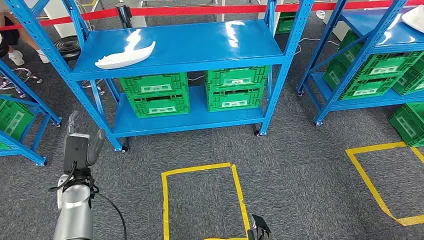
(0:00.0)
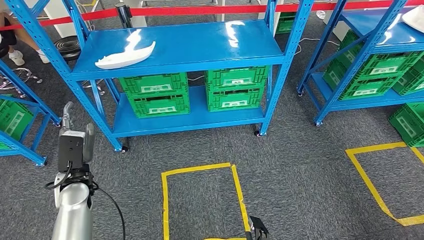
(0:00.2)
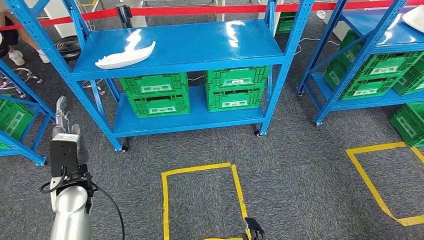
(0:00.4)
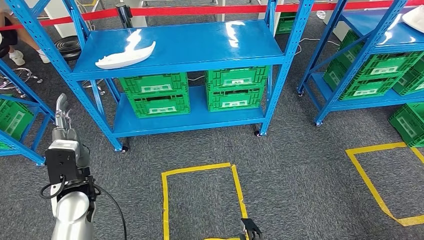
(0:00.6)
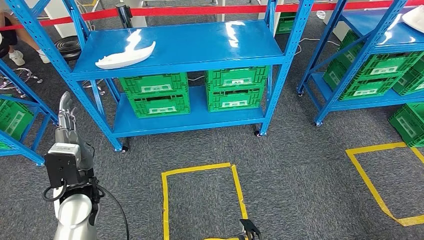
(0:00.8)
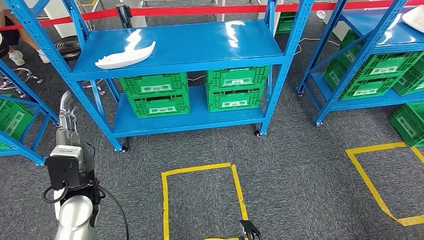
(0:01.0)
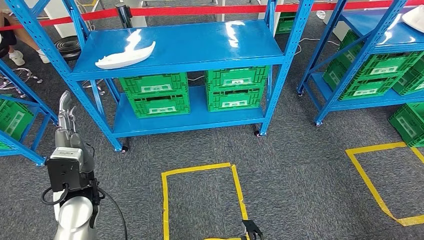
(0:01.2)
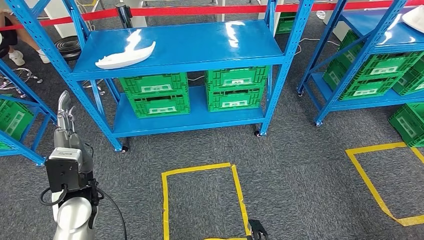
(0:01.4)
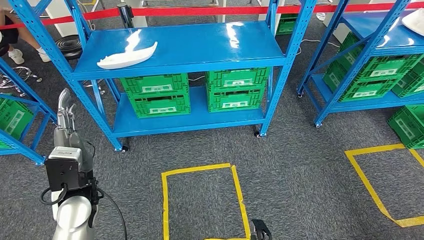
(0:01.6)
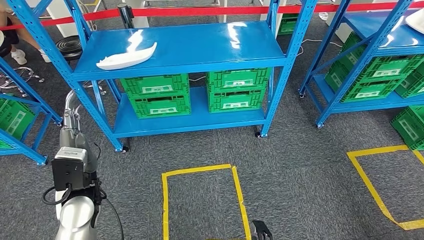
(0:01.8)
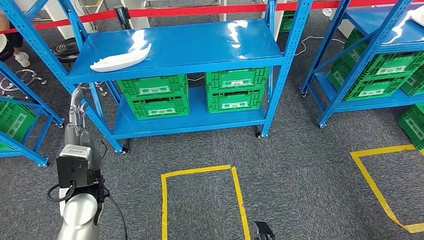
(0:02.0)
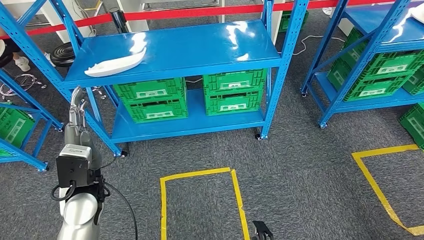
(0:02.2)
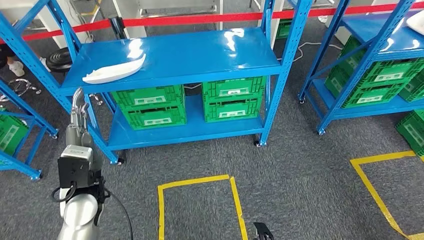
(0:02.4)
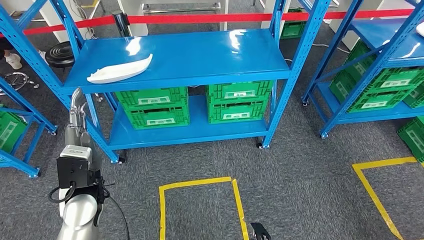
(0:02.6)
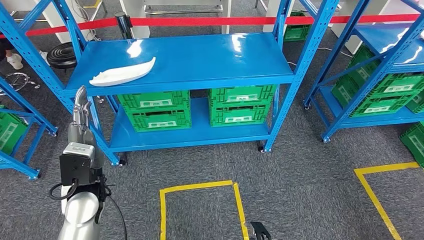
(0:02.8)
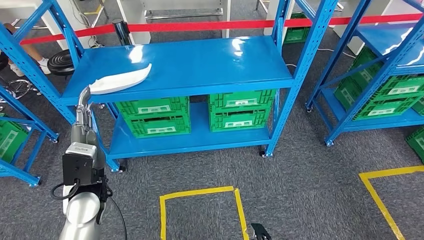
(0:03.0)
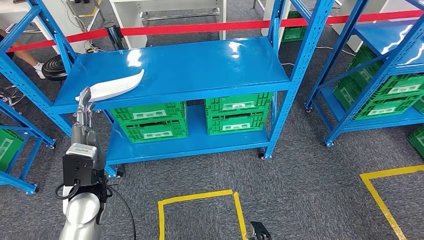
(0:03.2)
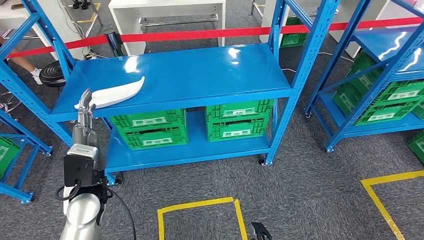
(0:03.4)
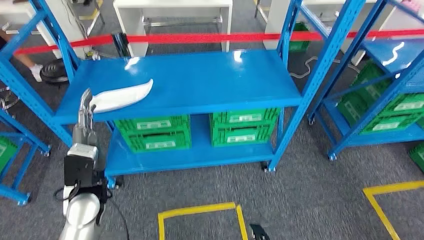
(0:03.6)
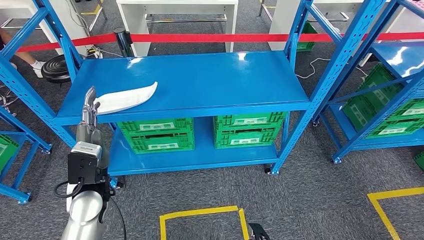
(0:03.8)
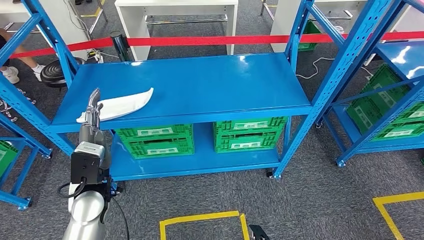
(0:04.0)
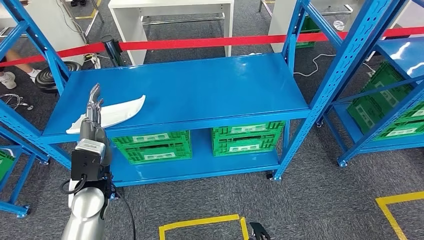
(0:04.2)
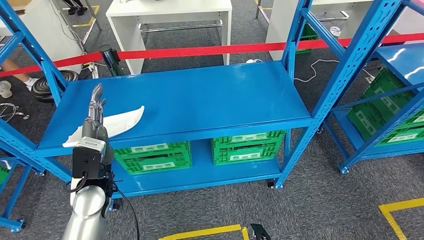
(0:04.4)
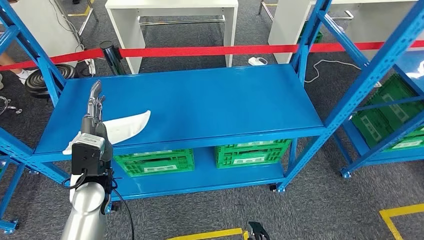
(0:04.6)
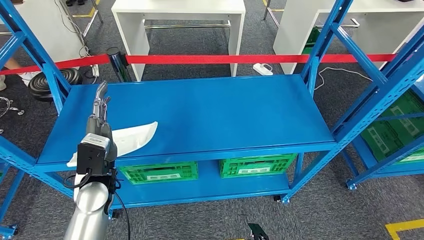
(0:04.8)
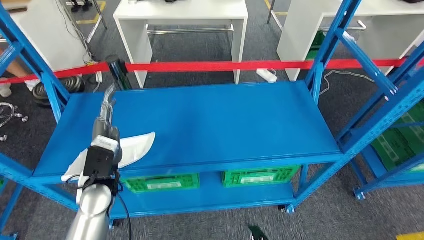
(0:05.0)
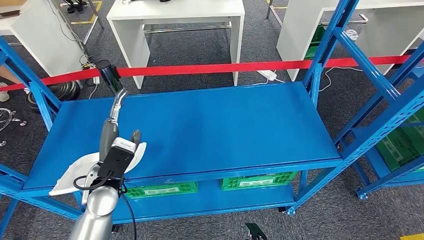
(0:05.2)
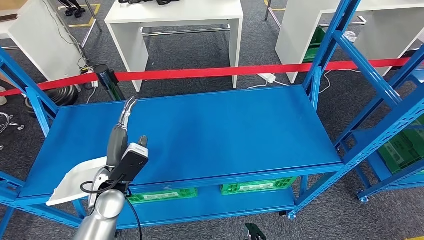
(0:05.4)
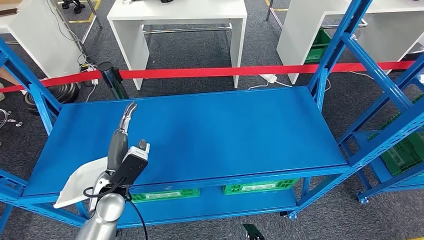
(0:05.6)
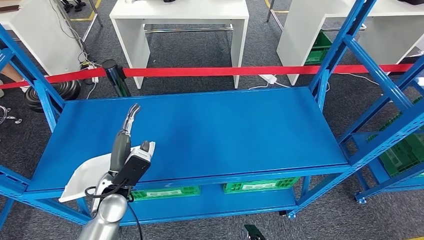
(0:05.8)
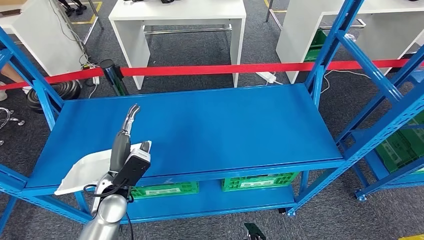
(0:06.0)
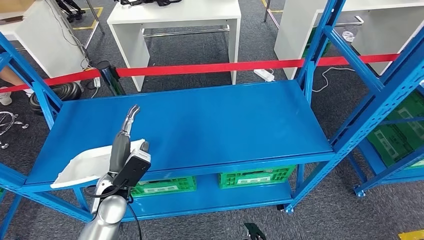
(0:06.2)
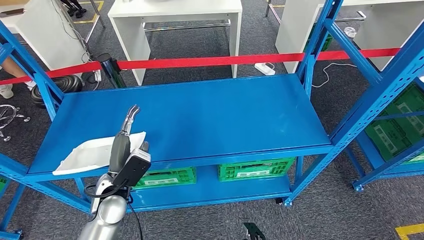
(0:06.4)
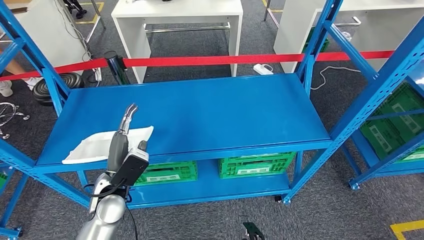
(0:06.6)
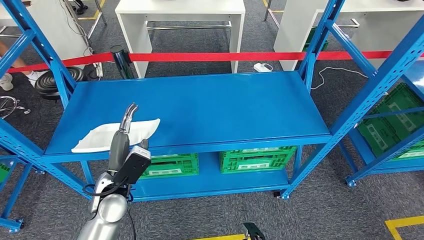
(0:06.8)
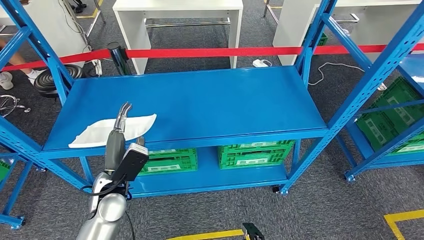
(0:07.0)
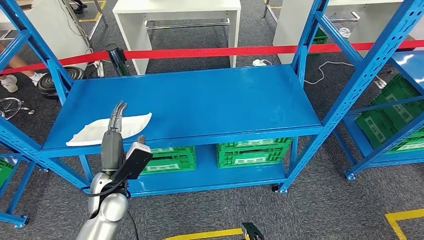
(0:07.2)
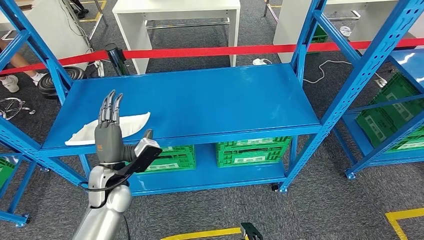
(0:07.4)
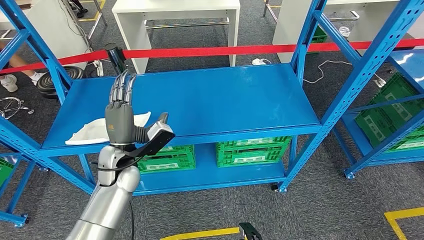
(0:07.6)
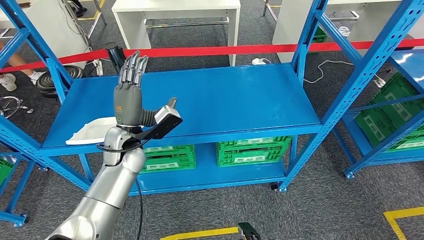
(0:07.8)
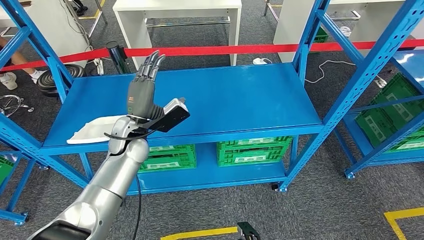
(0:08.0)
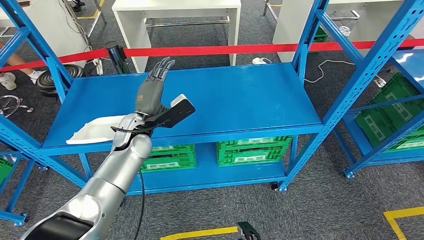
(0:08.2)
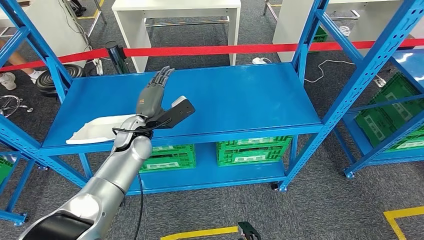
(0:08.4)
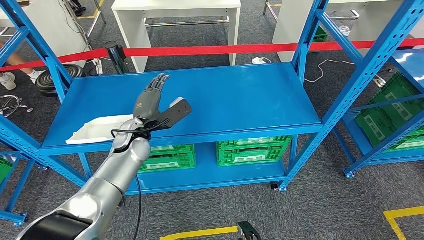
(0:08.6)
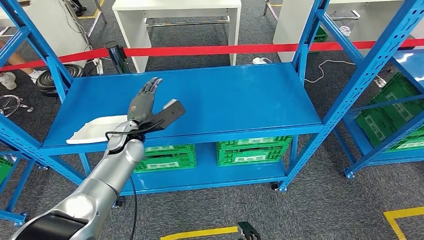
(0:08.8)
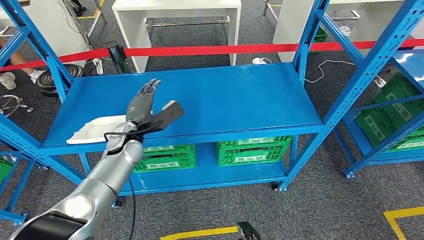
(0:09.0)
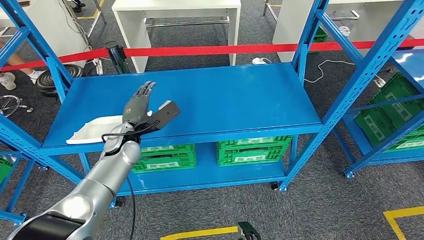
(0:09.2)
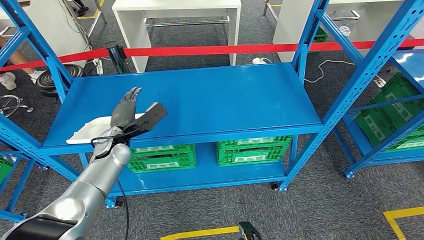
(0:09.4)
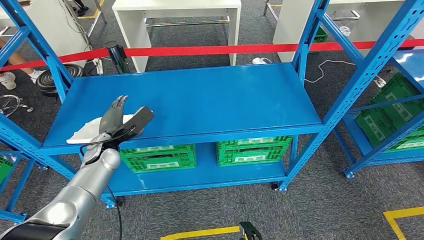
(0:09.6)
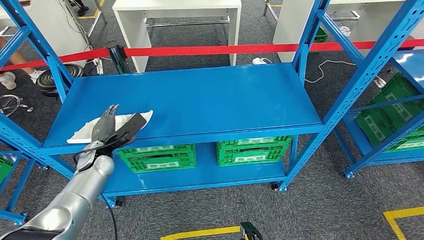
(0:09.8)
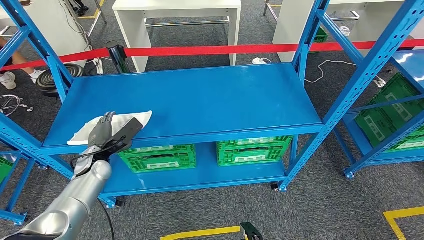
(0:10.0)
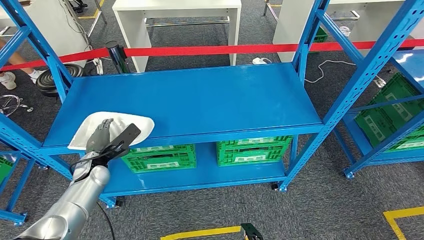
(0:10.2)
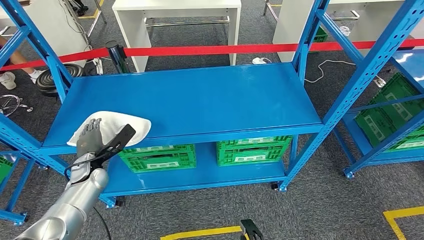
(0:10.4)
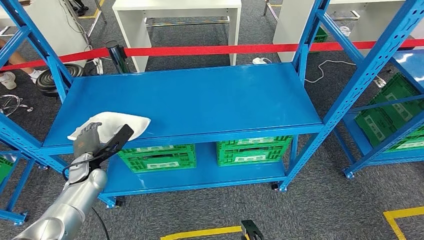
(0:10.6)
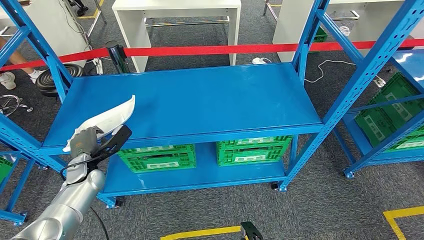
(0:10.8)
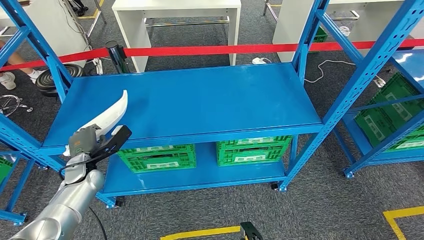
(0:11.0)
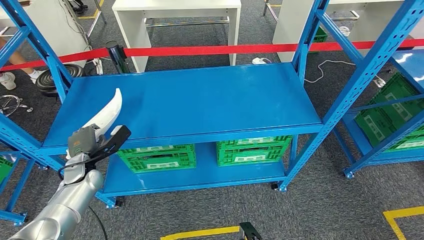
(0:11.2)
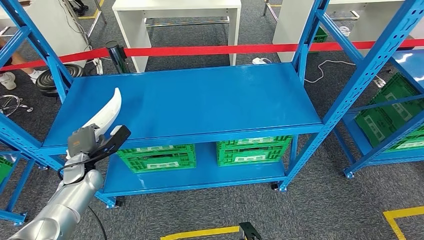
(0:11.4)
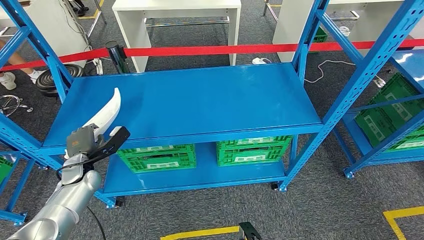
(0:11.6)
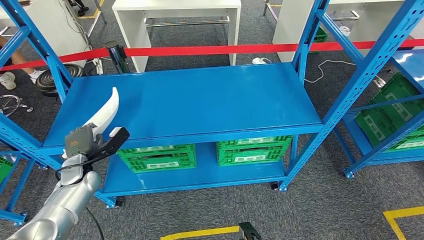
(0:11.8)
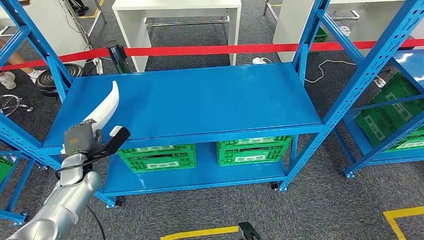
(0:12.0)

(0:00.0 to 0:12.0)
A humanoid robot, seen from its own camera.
0:07.6 - 0:09.0: The left hand shifts some 5 cm forward.
0:09.0 - 0:10.4: The left hand moves to the left and downward, about 15 cm.
0:10.4 - 0:12.0: The hands stay close to where they were, moving slightly.

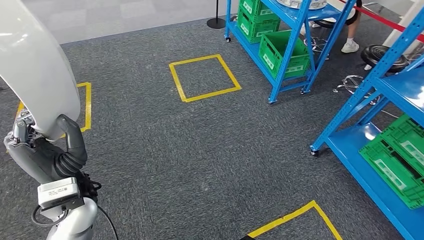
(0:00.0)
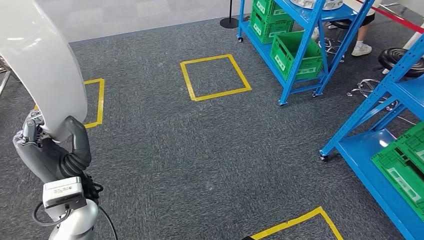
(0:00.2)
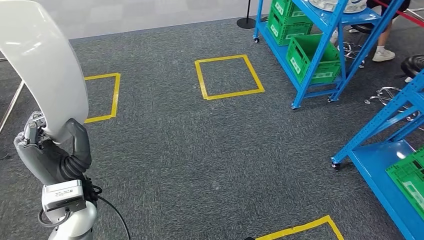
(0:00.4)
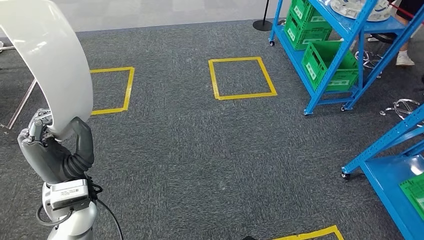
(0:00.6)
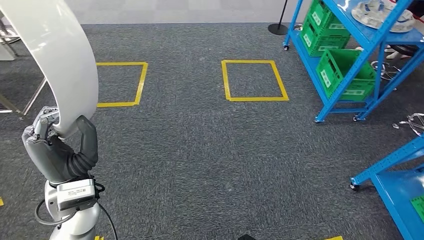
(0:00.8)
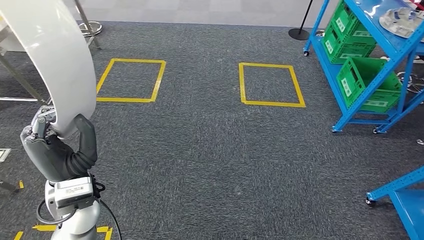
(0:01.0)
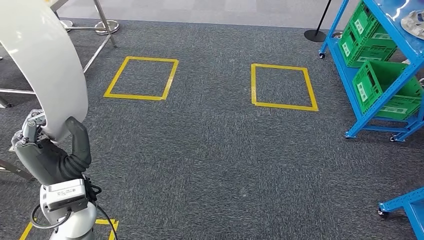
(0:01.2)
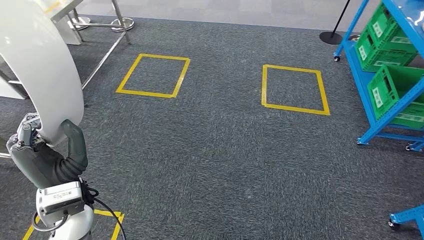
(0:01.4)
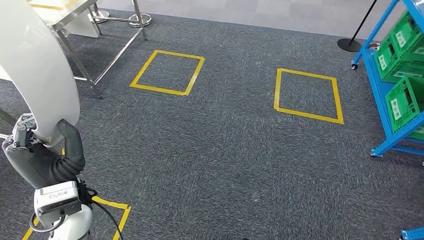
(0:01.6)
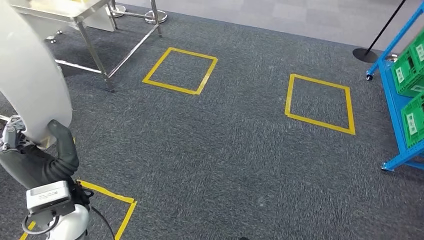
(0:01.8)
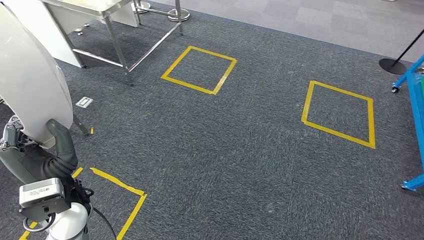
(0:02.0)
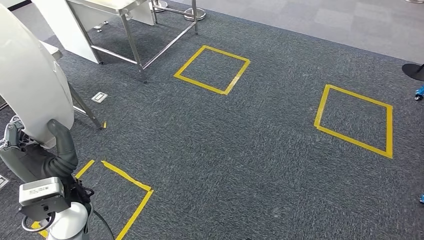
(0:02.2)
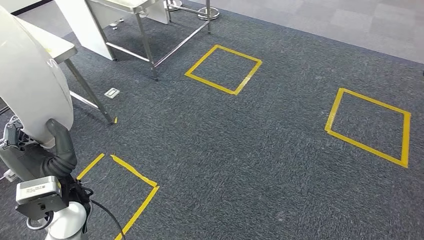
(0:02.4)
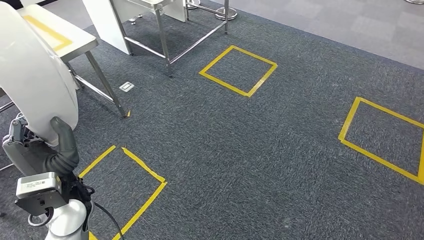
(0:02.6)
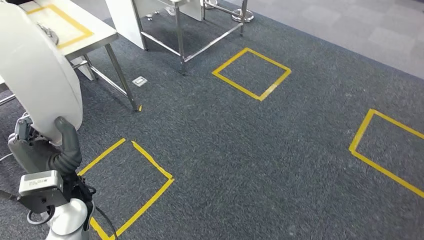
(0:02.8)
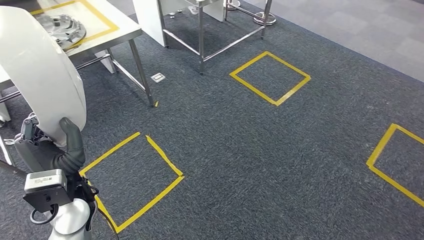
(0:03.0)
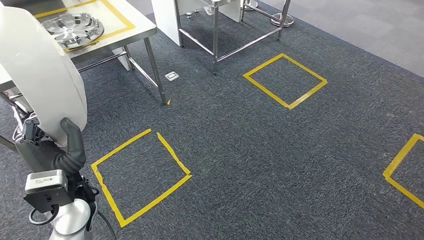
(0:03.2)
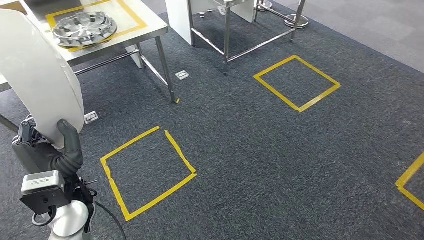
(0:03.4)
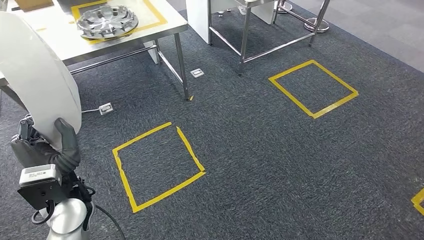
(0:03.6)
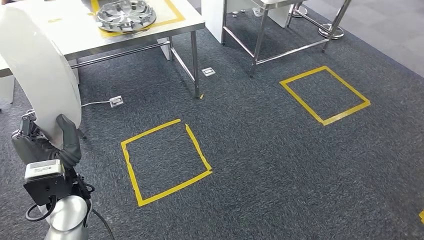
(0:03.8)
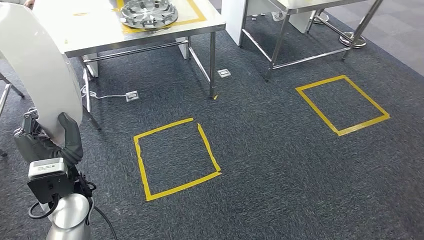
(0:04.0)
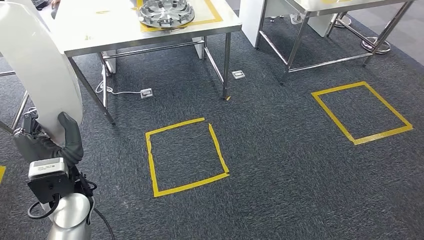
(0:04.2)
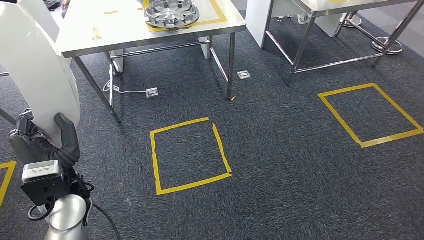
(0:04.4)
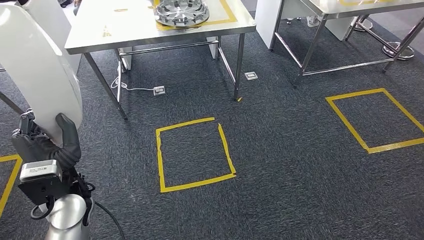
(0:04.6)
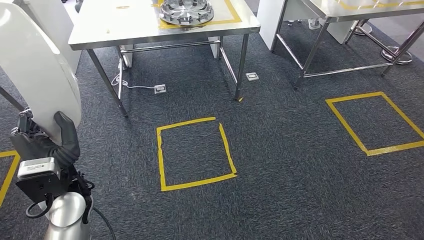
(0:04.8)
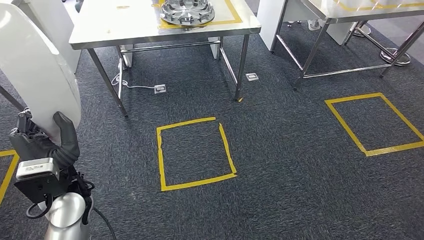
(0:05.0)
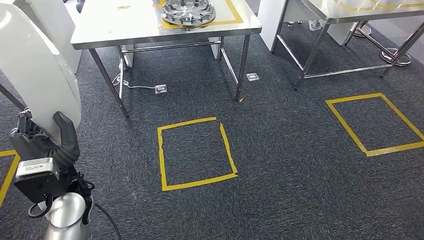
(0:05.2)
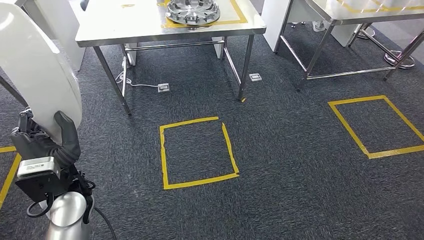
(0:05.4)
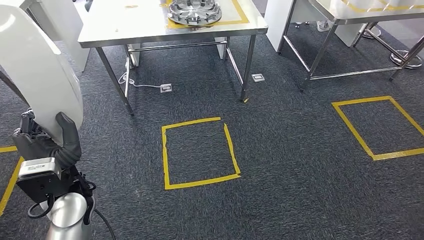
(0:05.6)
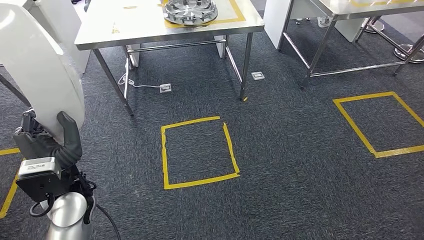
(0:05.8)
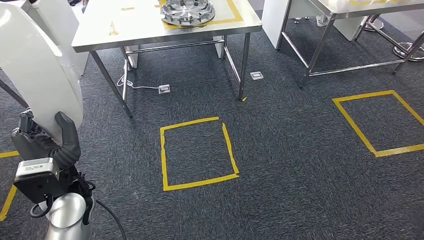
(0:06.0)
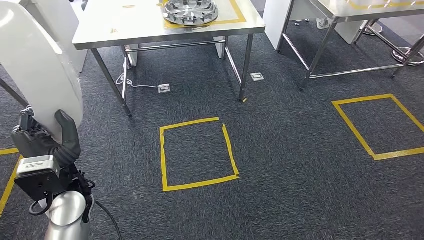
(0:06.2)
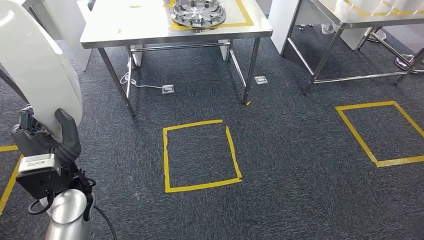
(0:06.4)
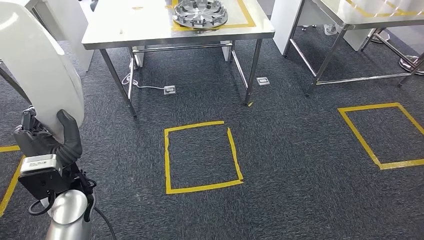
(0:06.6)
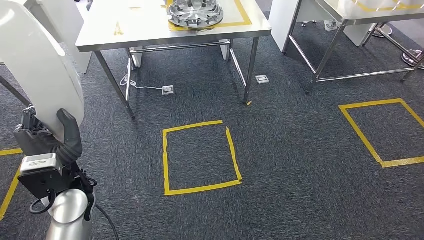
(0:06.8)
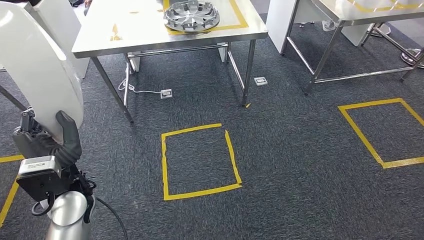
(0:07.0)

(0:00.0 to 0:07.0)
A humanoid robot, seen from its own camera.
0:05.6 - 0:07.0: The hands move only a little.
